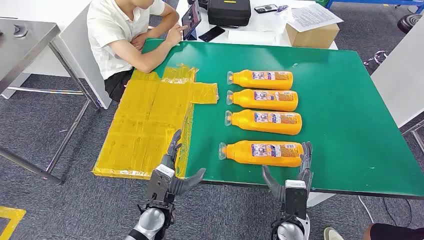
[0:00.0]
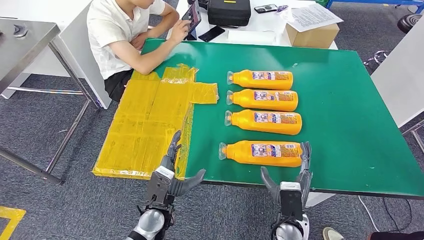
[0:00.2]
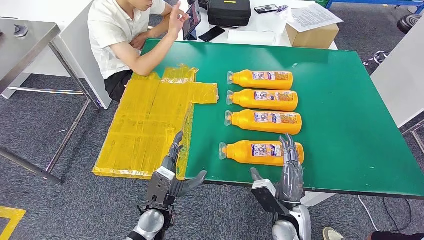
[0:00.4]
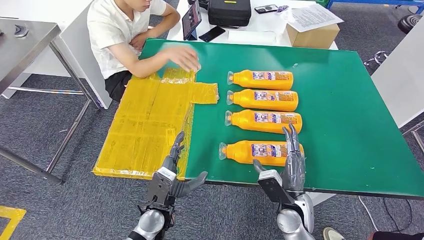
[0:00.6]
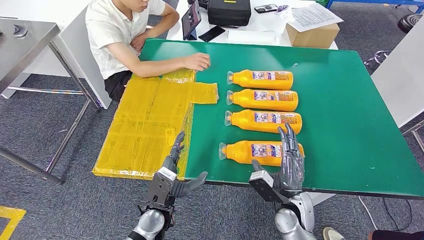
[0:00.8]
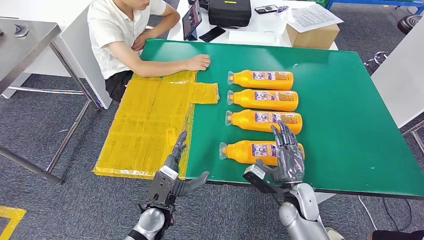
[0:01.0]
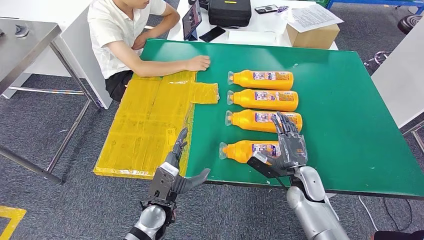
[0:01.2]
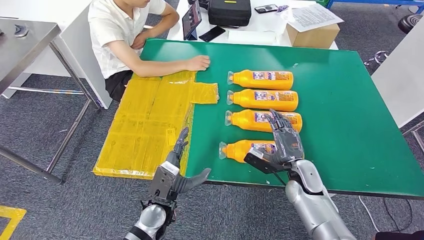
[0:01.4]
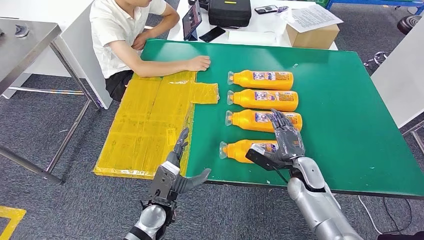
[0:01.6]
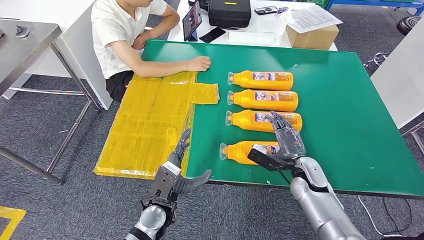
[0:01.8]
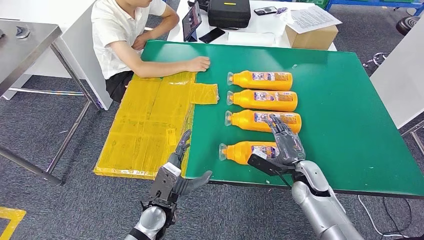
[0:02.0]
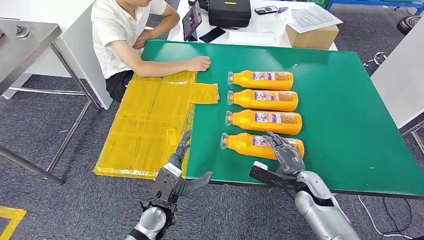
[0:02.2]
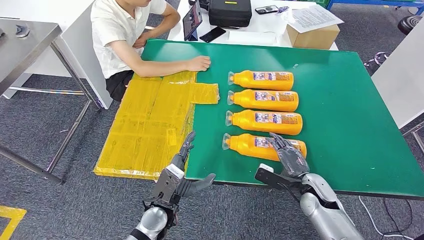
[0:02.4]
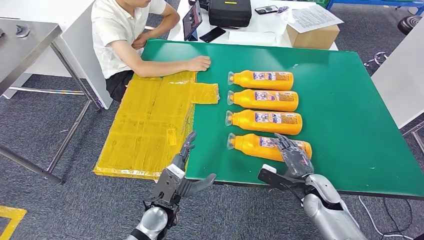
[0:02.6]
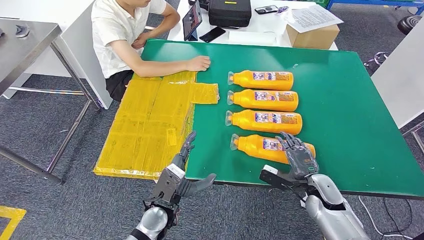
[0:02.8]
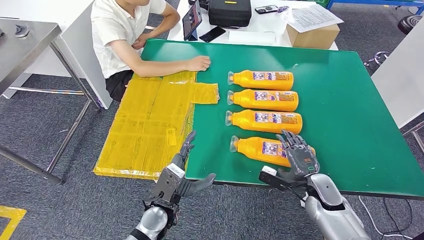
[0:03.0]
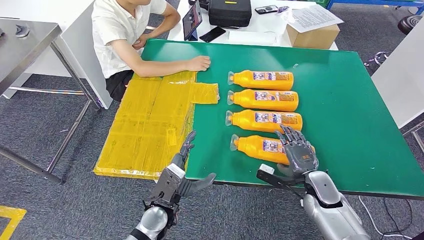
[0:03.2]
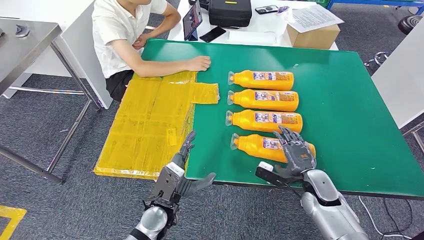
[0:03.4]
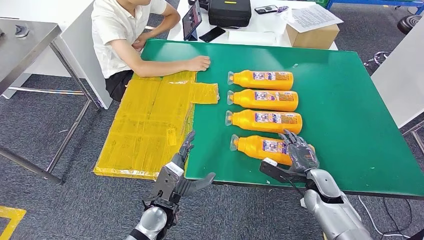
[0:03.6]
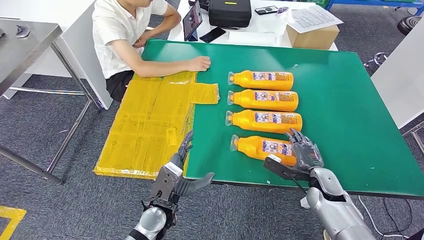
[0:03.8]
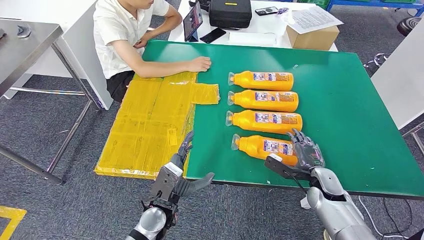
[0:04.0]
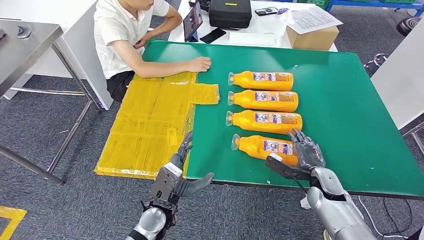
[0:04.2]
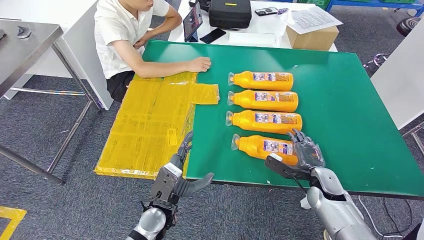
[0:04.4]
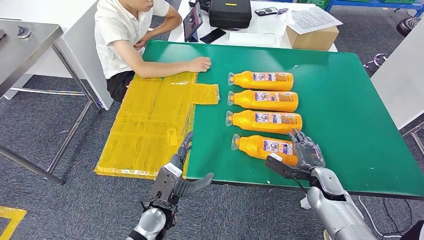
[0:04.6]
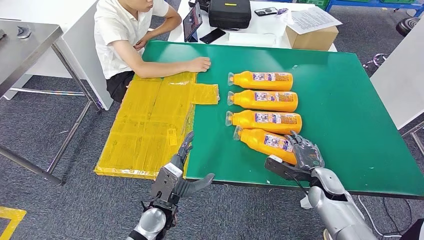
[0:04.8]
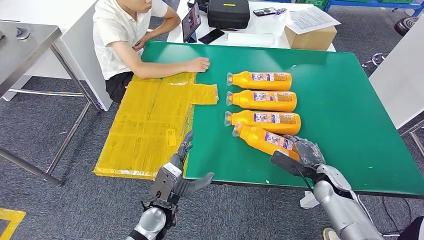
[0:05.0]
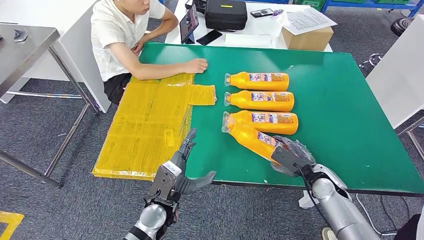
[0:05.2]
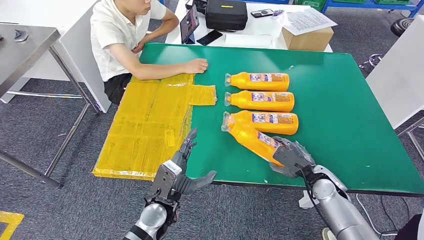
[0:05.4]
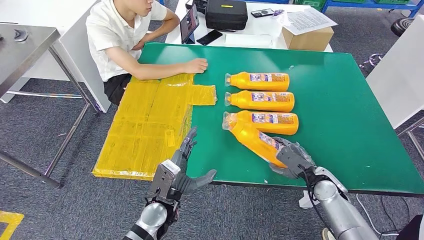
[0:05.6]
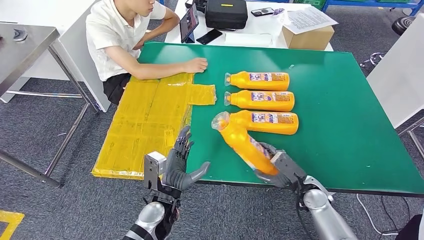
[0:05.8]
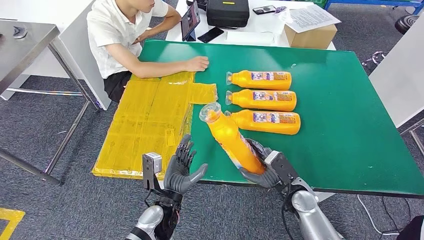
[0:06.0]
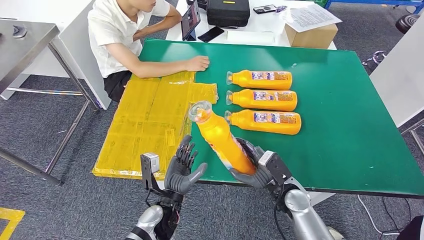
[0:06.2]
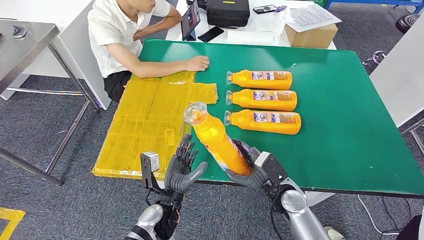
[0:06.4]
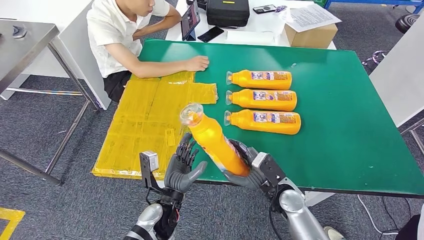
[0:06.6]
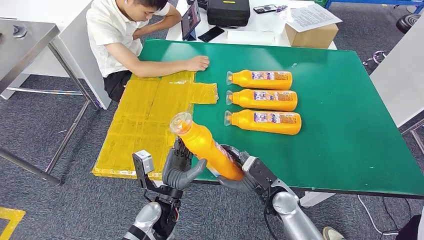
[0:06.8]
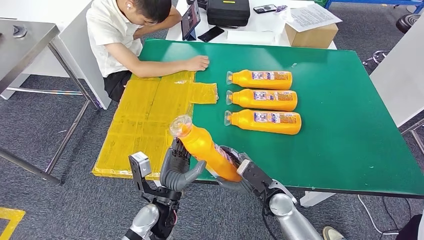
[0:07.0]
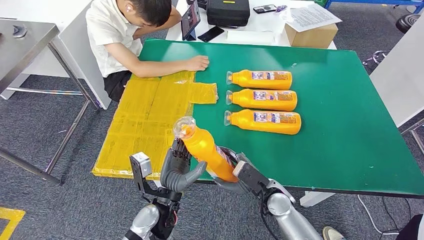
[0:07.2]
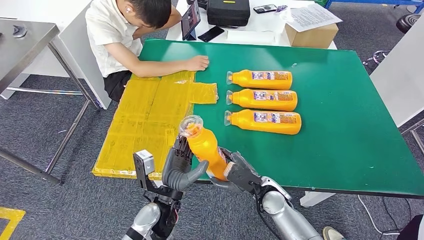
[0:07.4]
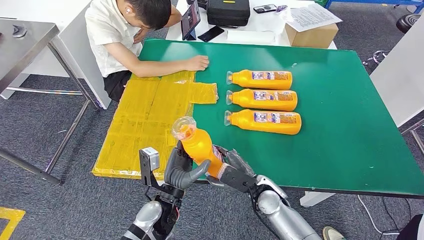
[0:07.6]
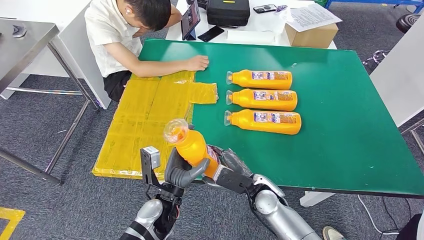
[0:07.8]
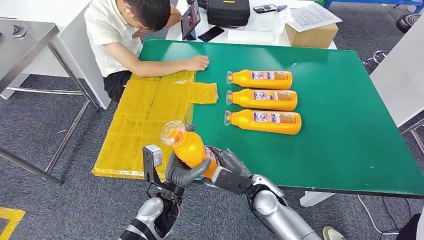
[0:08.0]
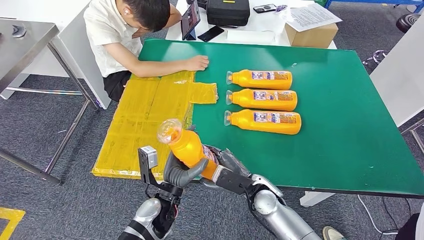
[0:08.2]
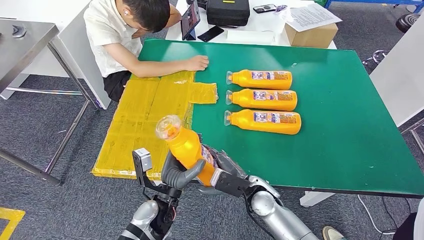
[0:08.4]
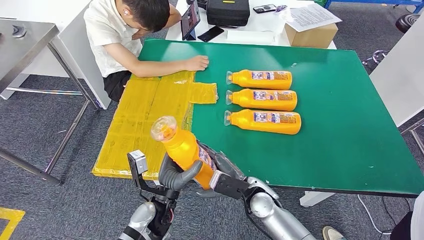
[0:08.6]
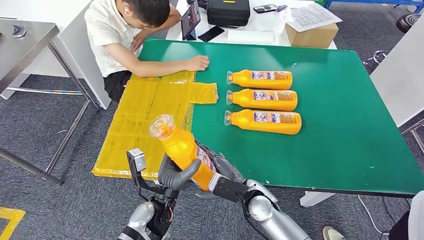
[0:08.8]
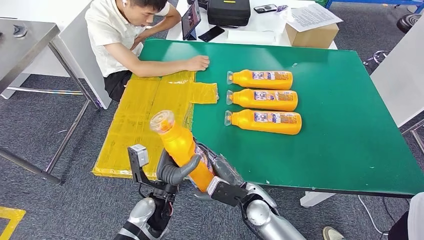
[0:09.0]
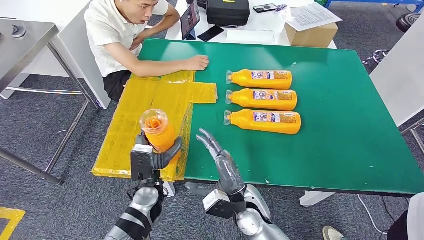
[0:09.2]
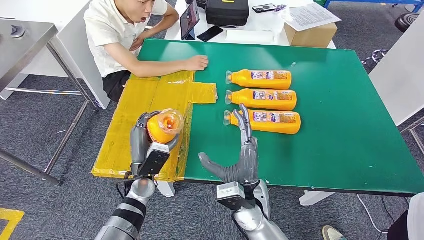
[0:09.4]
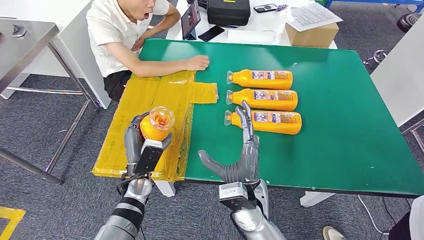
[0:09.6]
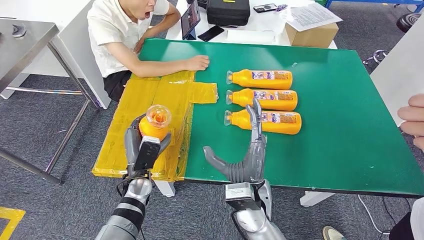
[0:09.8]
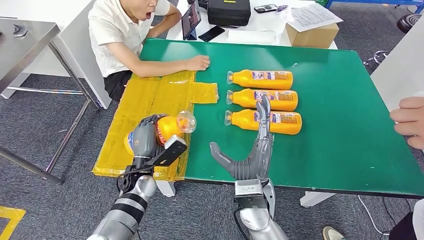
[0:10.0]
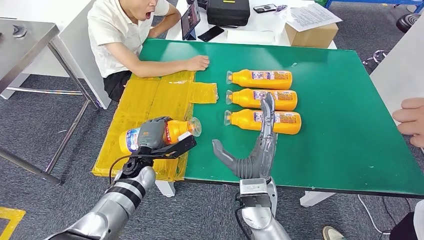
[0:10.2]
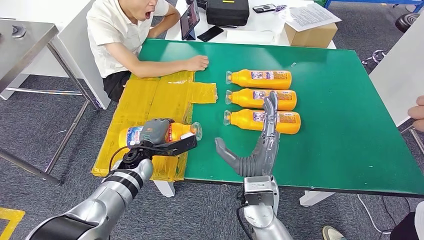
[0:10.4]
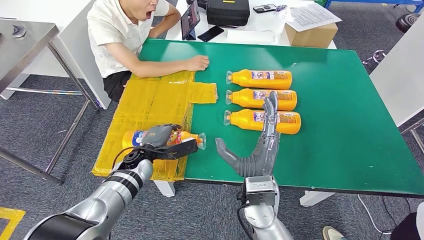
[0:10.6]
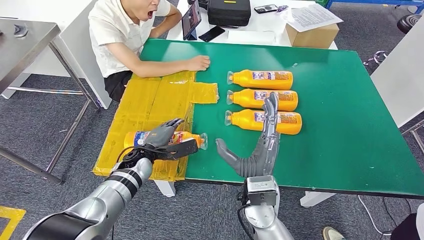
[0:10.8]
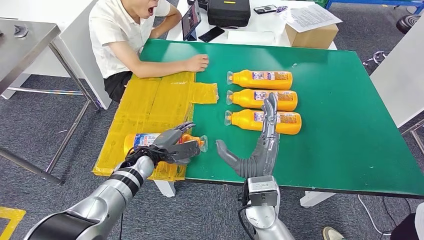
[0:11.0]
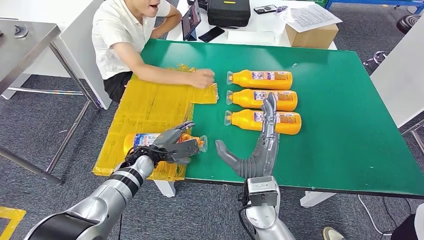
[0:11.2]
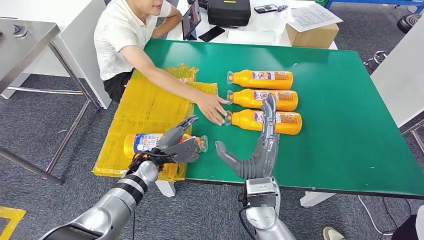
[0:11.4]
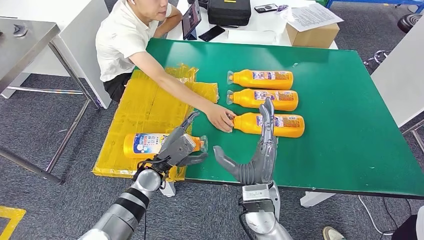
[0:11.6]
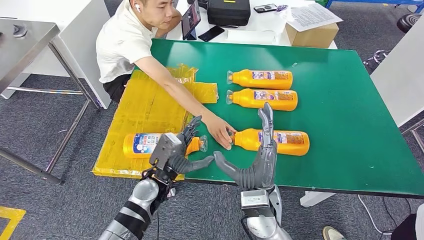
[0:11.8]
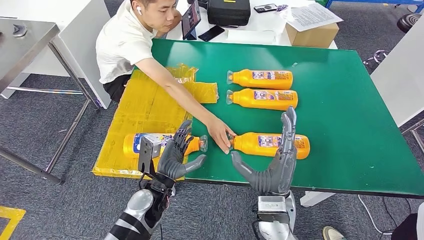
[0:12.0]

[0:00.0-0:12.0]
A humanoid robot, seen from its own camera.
Step, 0:00.0 to 0:06.6: Take the fast-moving consumer goods bottle from the table.
Step, 0:06.8 to 0:10.8: Flip the fast-moving consumer goods bottle to the front side.
0:01.6 to 0:03.0: The right hand shifts by some 5 cm.
0:03.0 to 0:04.4: The hands stay close to where they were, moving slightly.
0:06.0 to 0:07.6: The right hand moves to the left, roughly 10 cm.
0:07.6 to 0:09.0: The hands make only small movements.

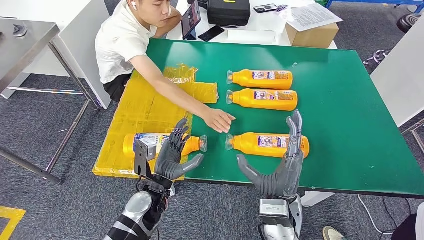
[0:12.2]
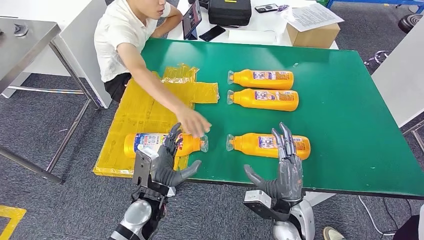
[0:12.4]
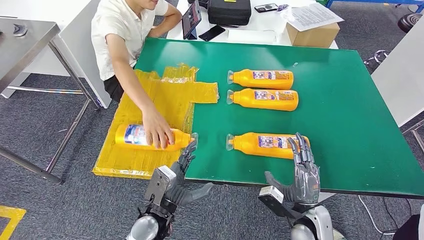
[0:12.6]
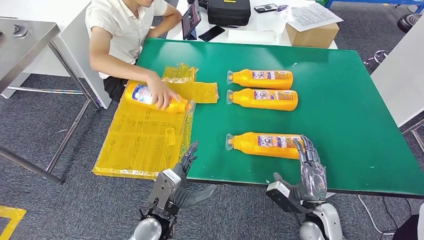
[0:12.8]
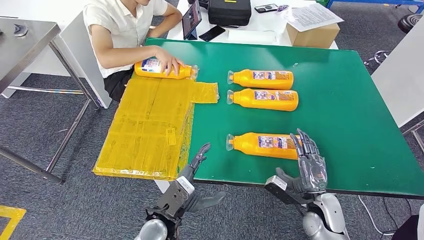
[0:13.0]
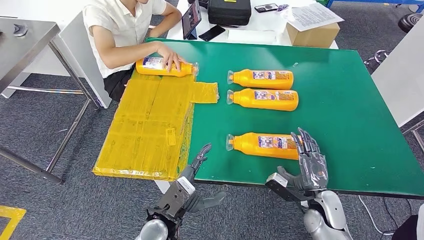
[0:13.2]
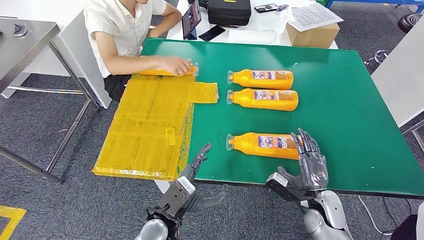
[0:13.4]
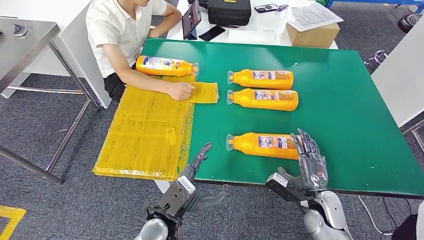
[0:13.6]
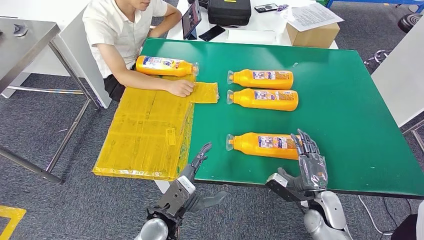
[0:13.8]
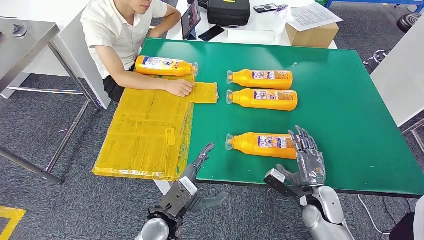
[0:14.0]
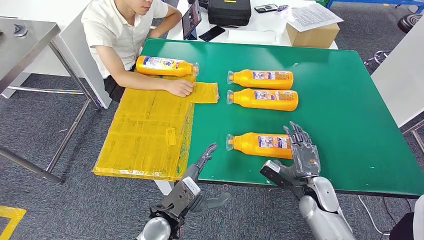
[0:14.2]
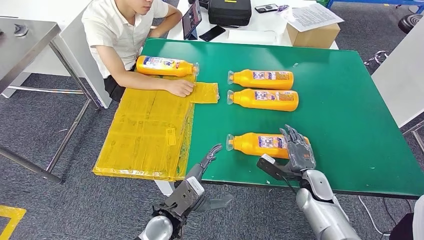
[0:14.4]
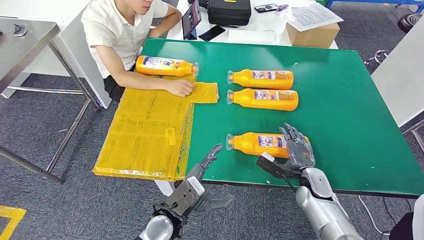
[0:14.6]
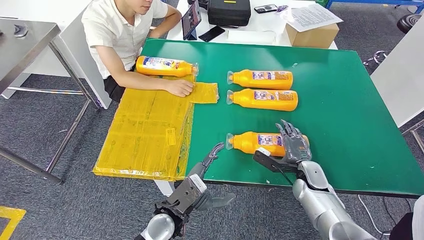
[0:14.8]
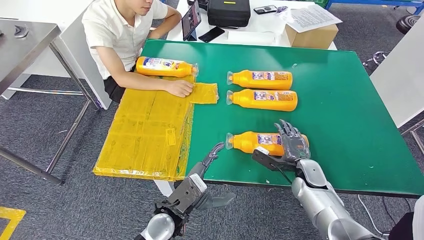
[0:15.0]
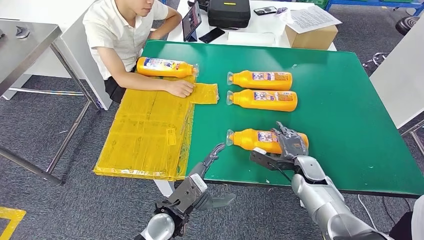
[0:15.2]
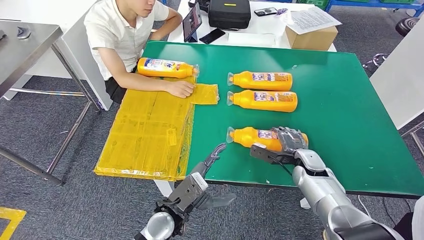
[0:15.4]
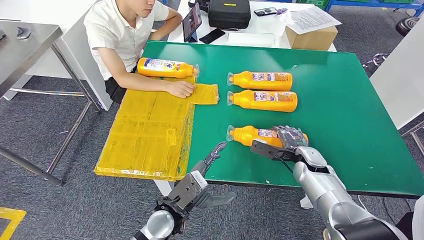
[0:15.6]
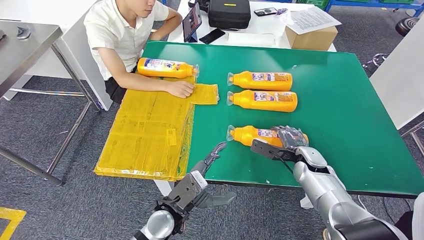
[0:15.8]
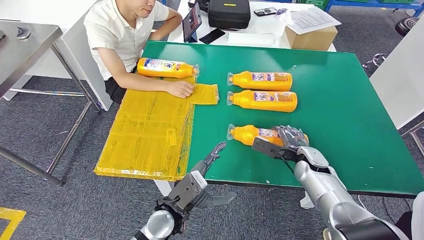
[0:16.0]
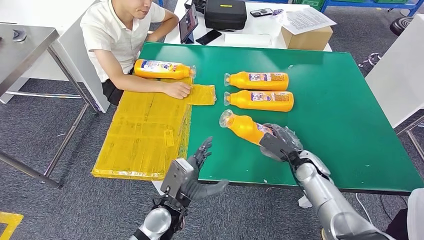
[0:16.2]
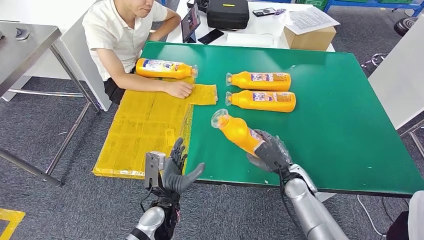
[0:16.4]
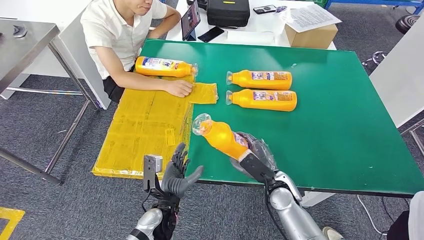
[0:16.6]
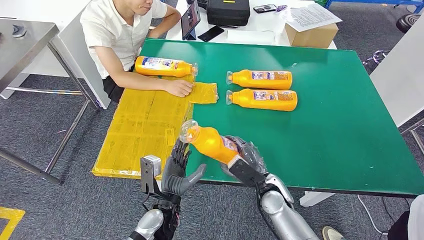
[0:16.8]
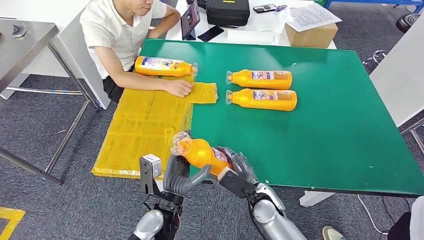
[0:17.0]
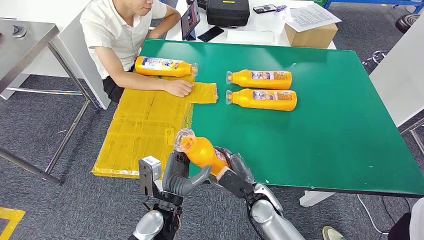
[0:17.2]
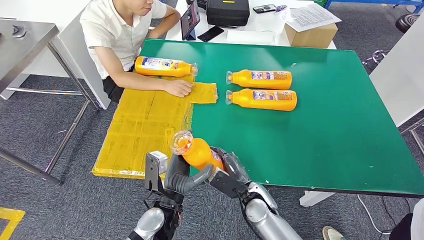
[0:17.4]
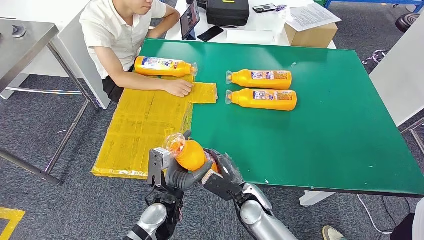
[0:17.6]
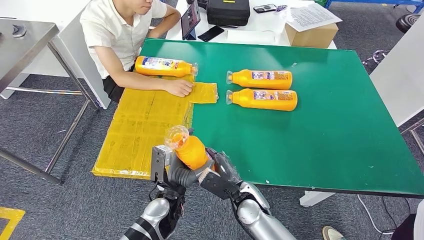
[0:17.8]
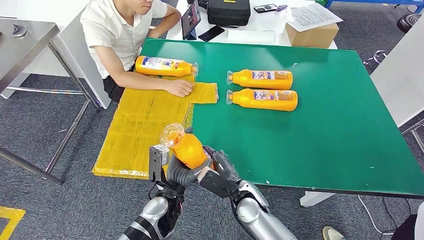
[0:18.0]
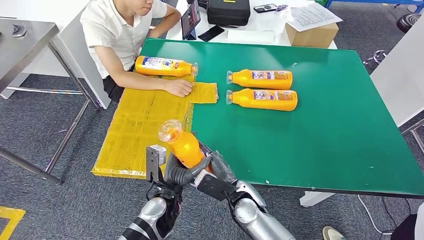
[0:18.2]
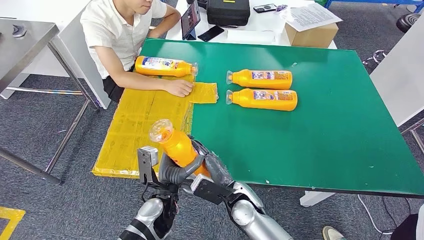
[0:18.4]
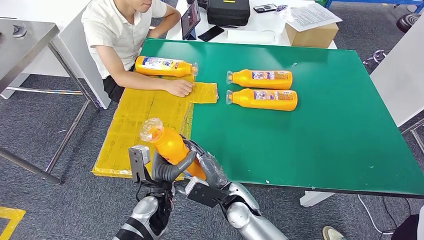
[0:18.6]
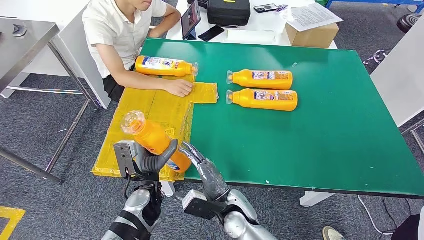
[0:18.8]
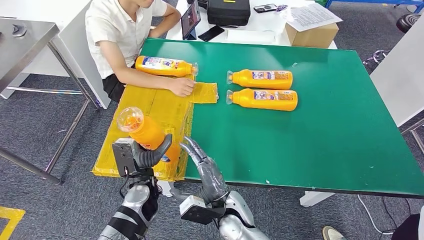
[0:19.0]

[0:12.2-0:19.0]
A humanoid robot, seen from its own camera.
Step, 0:12.2 to 0:16.4: Pick up the fast-moving consumer goods bottle from the table.
0:13.6 to 0:15.0: The right hand shifts about 10 cm forward.
0:17.6 to 0:19.0: The hands both shift to the left by about 5 cm.
